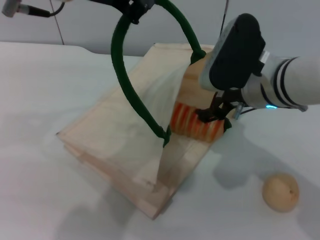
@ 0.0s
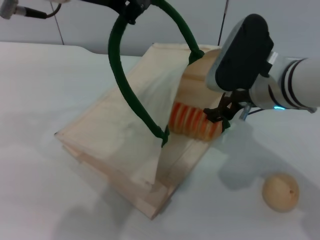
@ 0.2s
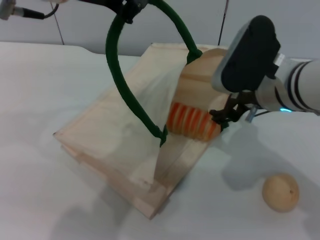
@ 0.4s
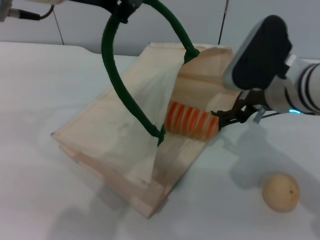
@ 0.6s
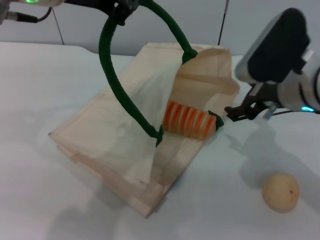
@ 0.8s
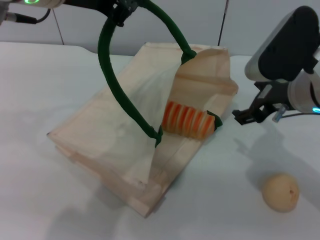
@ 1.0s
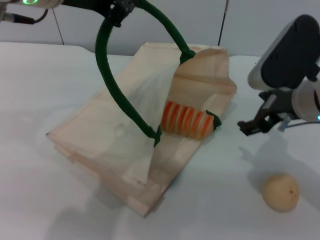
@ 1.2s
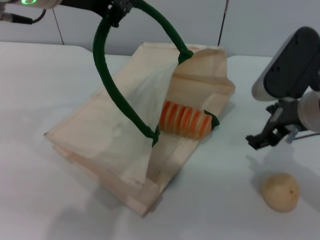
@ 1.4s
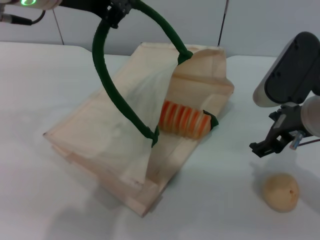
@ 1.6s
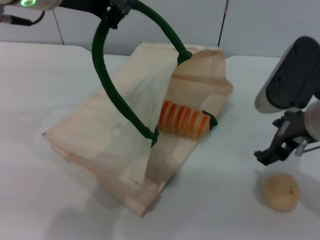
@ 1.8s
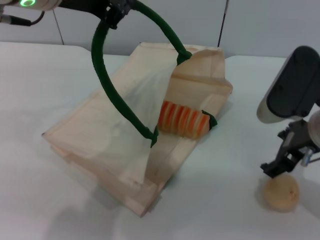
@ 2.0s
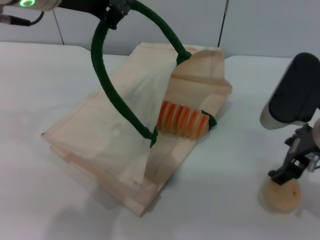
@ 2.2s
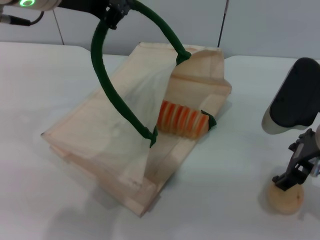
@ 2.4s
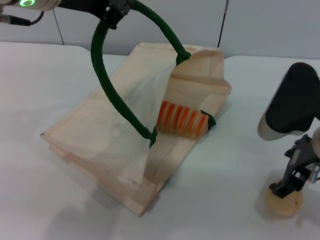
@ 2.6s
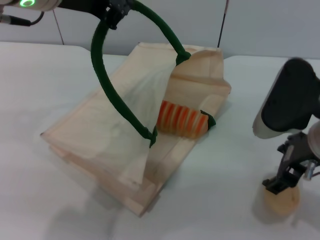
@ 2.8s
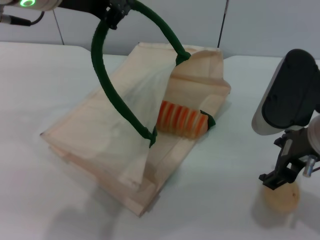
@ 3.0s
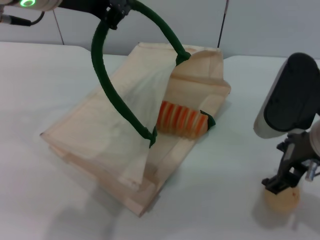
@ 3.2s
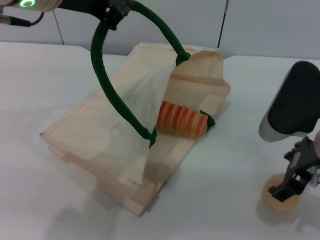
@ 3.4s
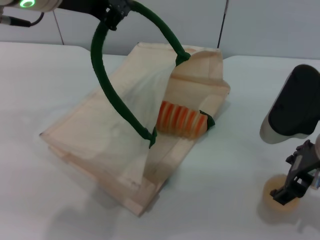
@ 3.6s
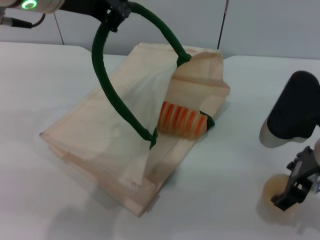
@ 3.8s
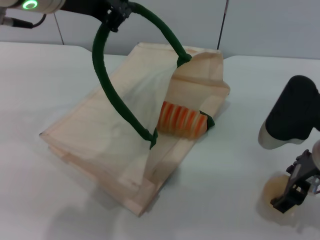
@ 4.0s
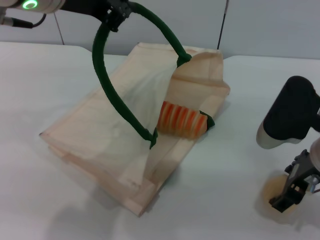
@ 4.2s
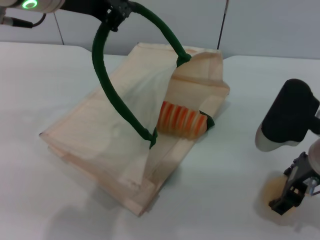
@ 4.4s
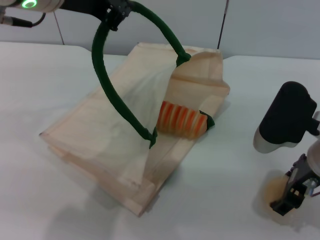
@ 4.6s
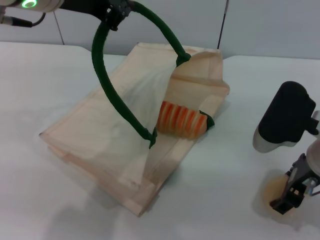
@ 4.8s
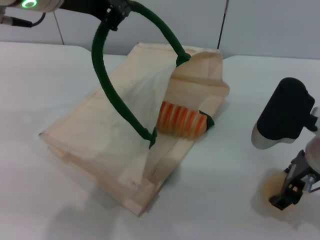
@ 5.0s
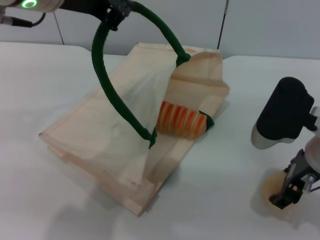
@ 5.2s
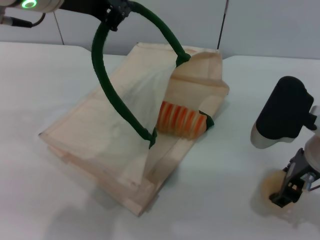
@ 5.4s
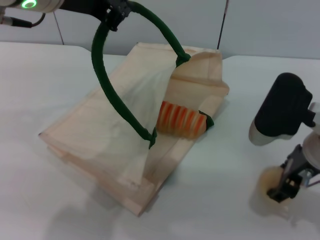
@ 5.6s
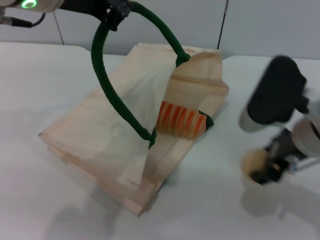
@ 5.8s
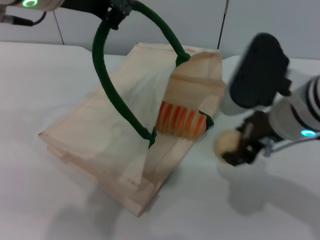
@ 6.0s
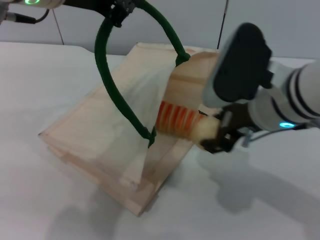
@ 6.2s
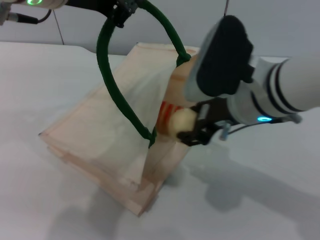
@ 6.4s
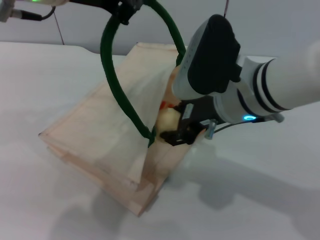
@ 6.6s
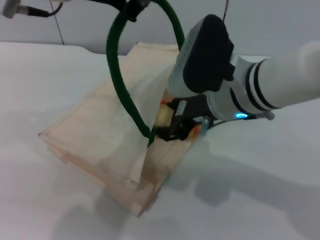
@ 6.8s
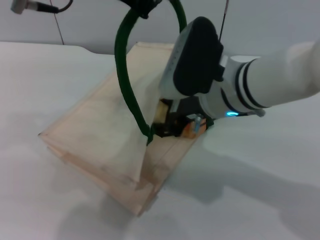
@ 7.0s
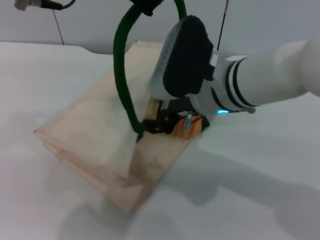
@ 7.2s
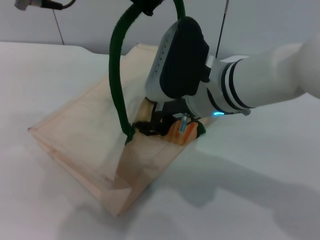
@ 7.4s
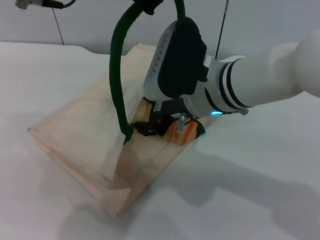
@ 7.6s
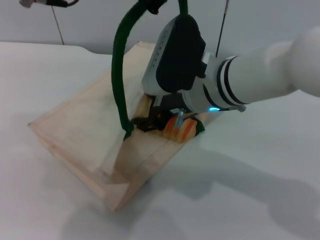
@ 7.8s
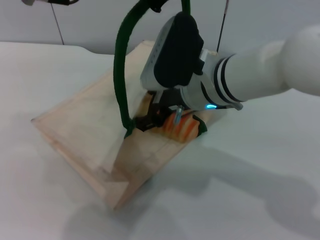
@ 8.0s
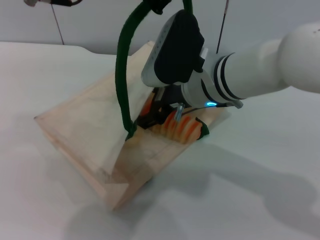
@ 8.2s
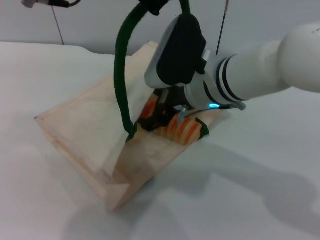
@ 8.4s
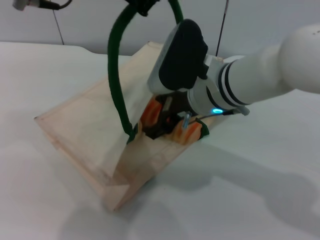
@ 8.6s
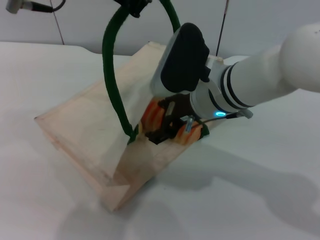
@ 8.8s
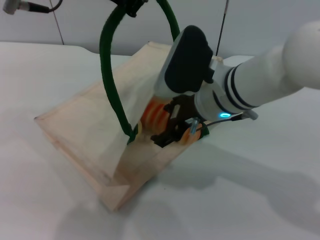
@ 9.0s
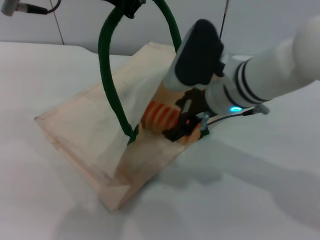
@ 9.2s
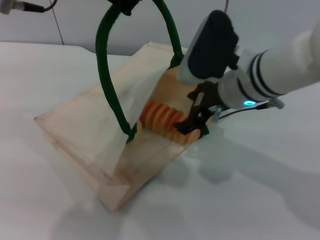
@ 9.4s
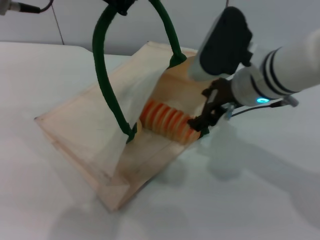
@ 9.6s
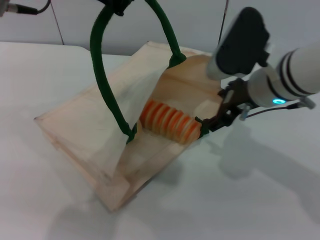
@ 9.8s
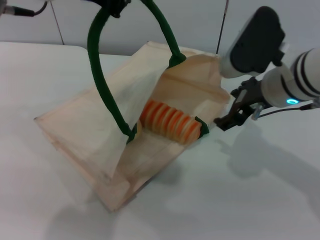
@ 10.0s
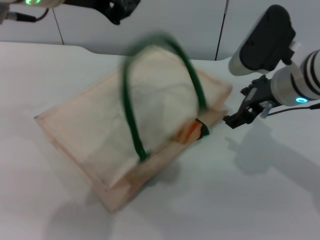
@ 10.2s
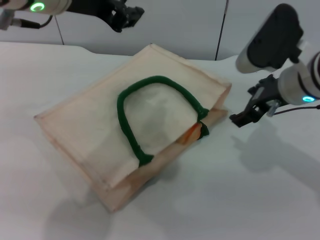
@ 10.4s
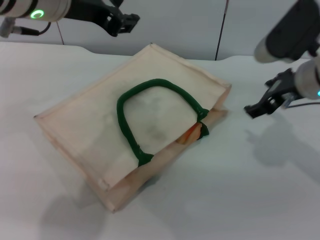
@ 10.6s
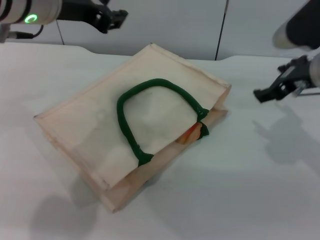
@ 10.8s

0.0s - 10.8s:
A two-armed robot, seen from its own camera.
Task of the whole recording: pick up the bread and egg yolk pastry from the table and place it in the white handbag.
Step, 1.0s - 5.8s: Pick up the egg yolk pastry with the right gripper.
Step, 6.2s - 9.8s: Place the egg yolk pastry into the woven bag with the right gripper.
Step, 10.0s - 10.8s: Lower the woven bag with the left gripper to close it.
0.0s - 1.6s: The right gripper shifts about 5 cm to the right.
1.6s - 3.0s: The grippers make only small movements.
3.0s - 4.6s: The right gripper changes place by about 5 cm.
4.6s - 6.2s: The right gripper moves to the left, approximately 5 cm, and closes.
6.2s - 7.8s: The right gripper moves to the left, some 5 cm.
7.8s - 9.2s: The right gripper opens its fingers.
9.2s - 10.8s: The left gripper ends up about 5 cm from where it was, and opens up, while the right gripper shifts some 15 cm to the right.

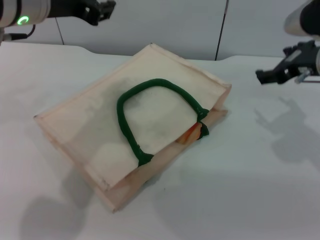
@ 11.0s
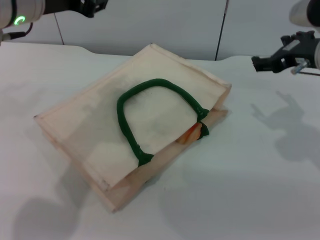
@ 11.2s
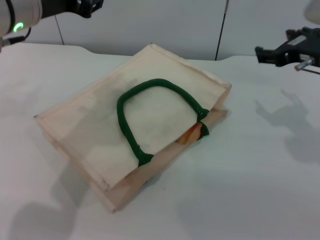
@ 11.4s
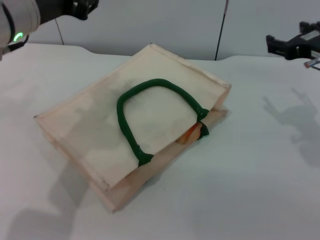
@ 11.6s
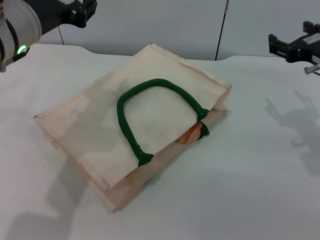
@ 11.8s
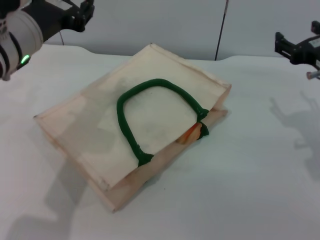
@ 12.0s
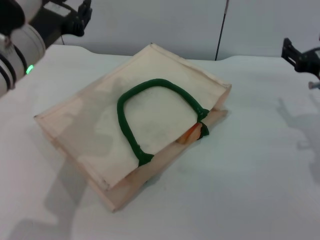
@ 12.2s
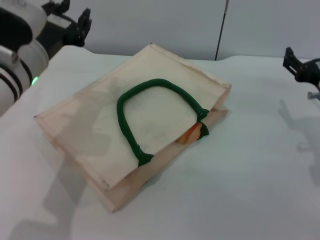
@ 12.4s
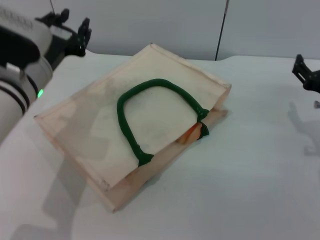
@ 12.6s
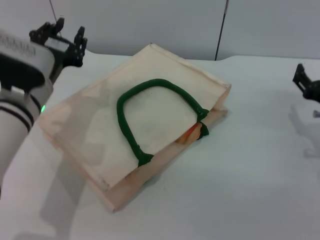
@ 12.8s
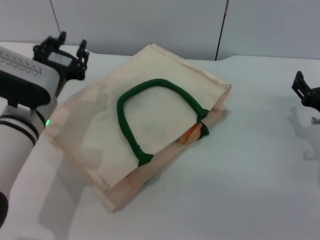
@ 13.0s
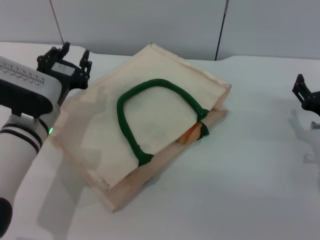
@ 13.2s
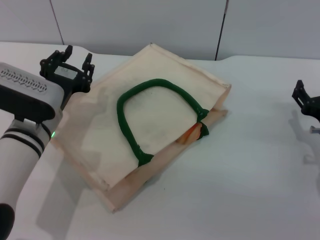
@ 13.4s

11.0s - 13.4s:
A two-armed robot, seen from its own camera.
Task of the whole recording: pick up the bread and egg yolk pastry from the table and place it in the white handbag.
11.0s - 12.2s: Both grippers travel together downward, approximately 10 cm.
12.2s - 13.4s: Both grippers travel together downward, about 10 cm.

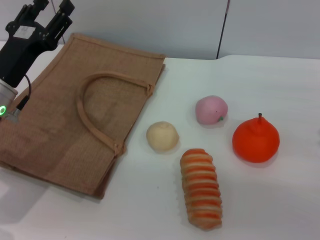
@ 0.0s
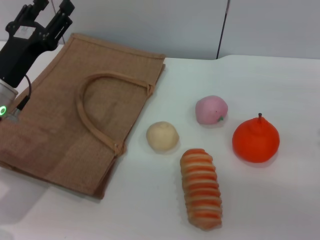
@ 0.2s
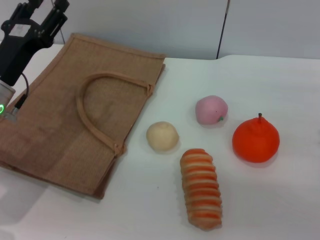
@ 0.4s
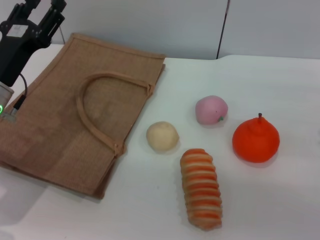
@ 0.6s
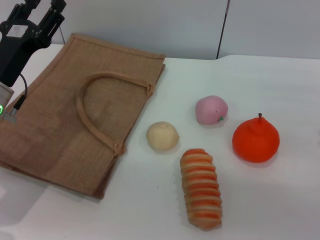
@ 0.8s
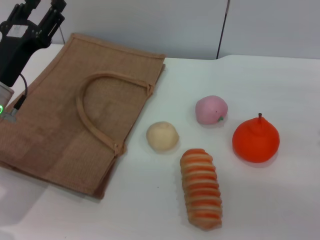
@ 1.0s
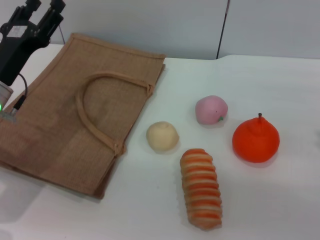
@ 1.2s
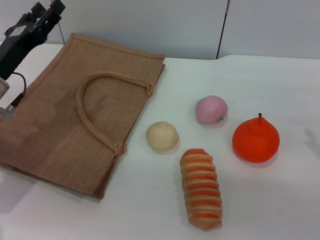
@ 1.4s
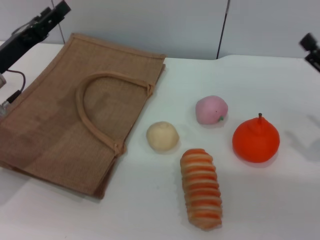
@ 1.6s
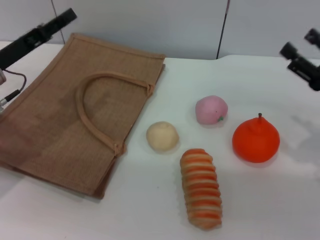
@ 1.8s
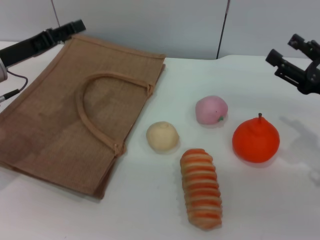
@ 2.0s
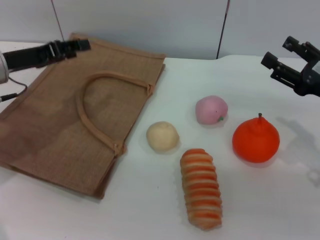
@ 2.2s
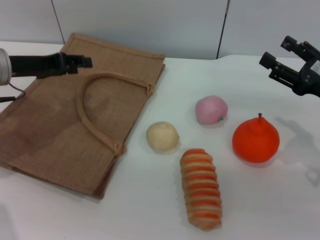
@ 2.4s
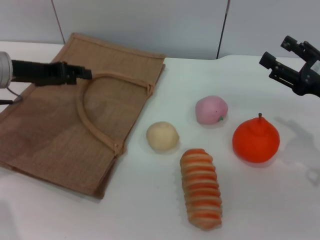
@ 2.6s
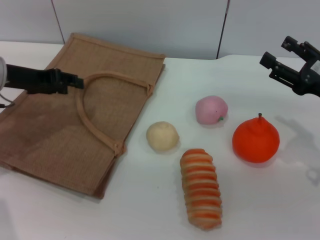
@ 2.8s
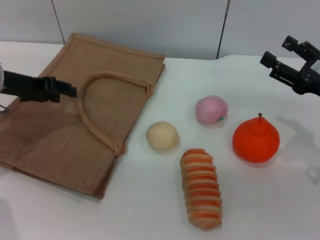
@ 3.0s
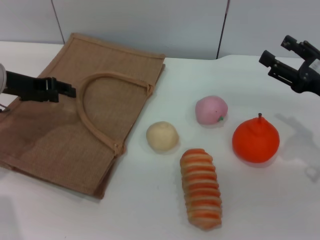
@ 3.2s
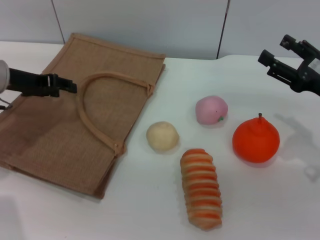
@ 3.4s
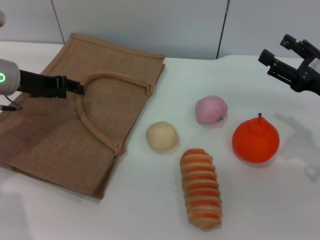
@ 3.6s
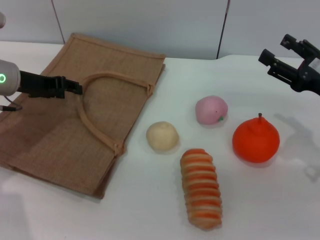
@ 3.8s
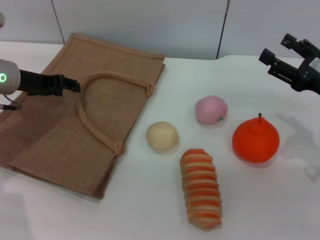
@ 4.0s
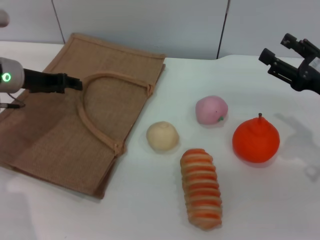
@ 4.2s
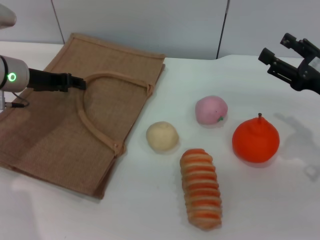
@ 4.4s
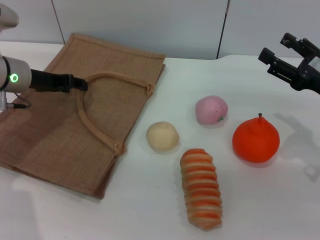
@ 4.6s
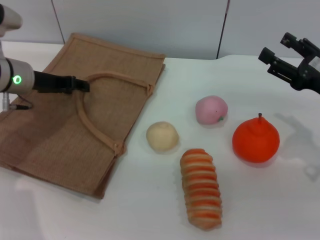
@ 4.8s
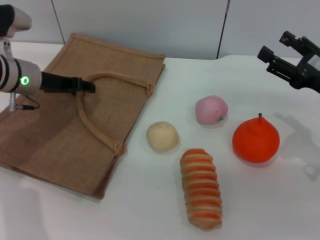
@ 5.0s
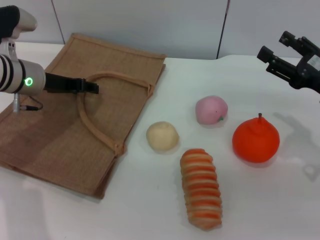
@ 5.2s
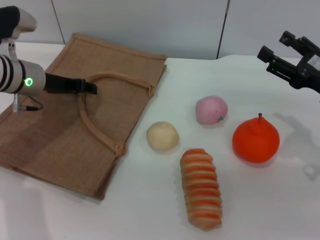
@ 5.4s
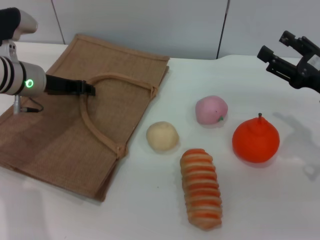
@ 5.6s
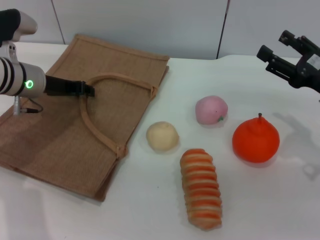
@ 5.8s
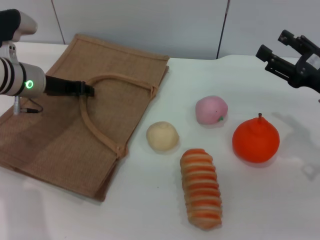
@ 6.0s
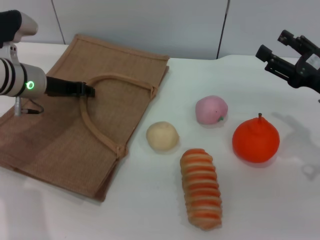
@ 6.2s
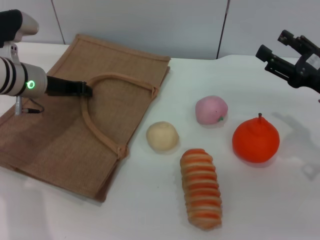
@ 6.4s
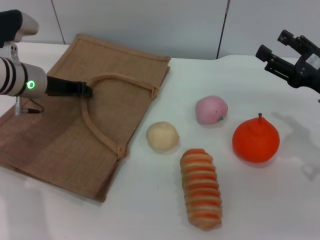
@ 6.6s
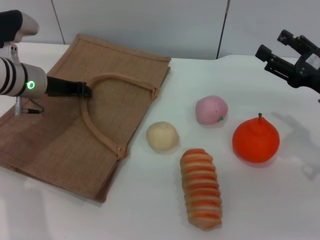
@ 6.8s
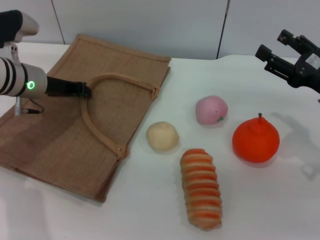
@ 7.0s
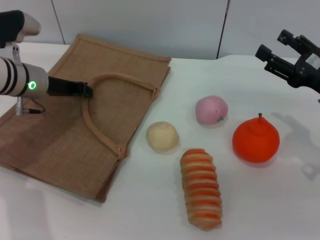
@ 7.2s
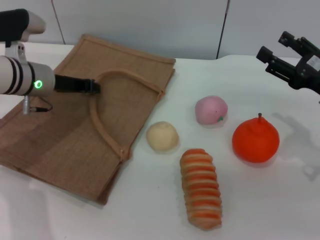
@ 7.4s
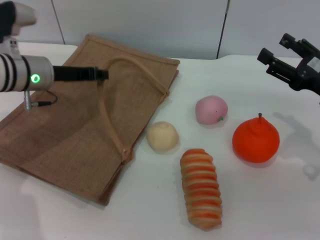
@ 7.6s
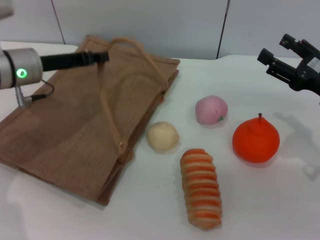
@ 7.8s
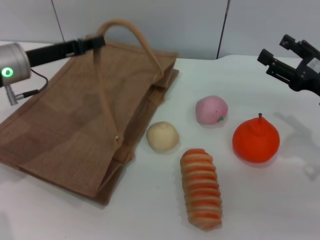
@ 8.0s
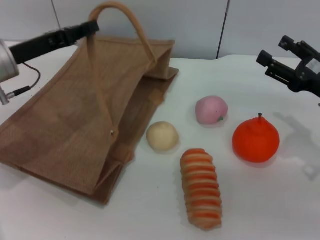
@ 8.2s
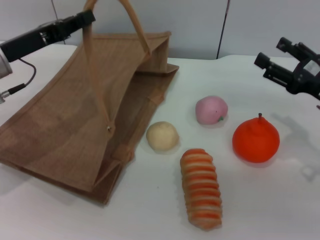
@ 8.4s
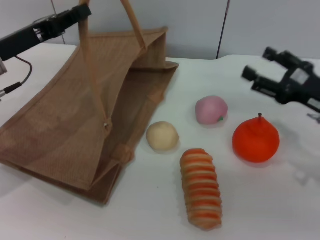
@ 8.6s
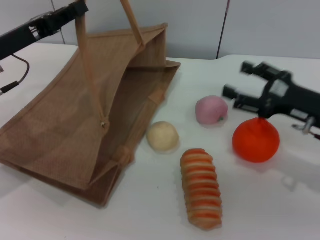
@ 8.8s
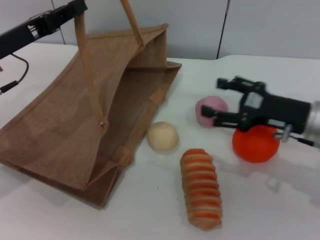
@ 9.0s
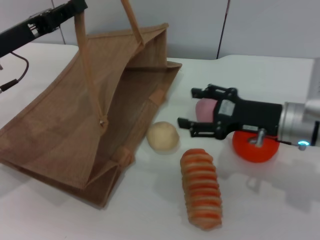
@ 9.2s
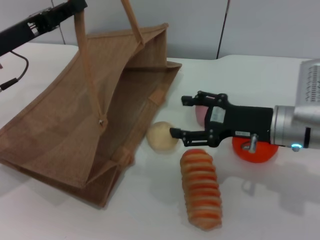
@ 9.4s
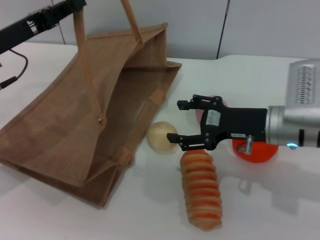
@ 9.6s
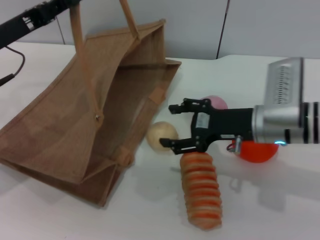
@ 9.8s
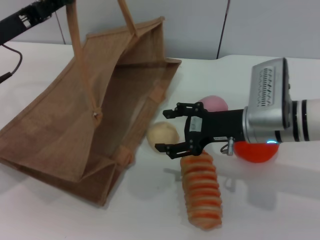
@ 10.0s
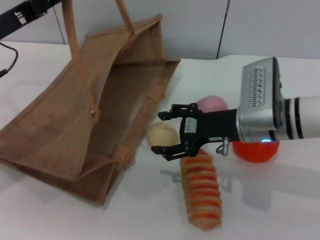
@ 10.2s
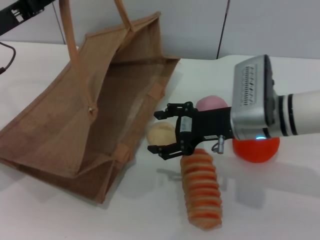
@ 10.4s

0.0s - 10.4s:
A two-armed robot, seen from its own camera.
Task of the whole recording: pick up the egg yolk pastry from the table and place it in the brown handbag.
Step, 0.0s - 8.2s: Lift the woven bag with the left gripper to open it.
0.0s - 1.4s: The grippers move only a little.
1.4s - 3.0s: The left gripper shifts by about 5 cm.
3.0s - 4.4s: There are only small adjustments of the grippers.
4.4s - 6.0s: The left gripper closes its fingers.
6.0s - 7.4s: The left gripper closes up.
7.4s - 9.0s: The left gripper heads backward and upward, covering about 10 cm. Meanwhile the right gripper goes approximately 5 cm to the left.
9.0s - 10.4s: The right gripper shifts about 10 cm to the left.
